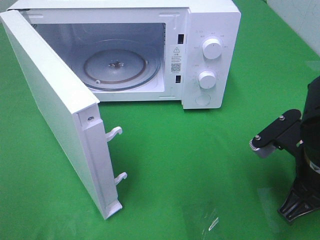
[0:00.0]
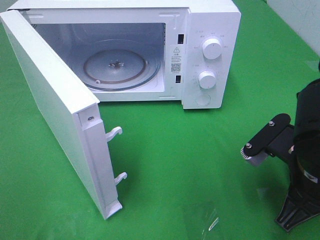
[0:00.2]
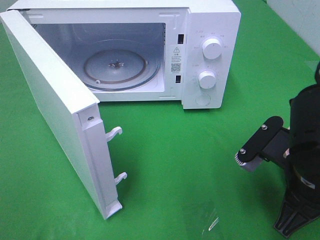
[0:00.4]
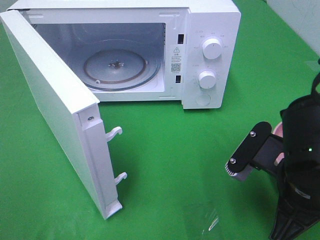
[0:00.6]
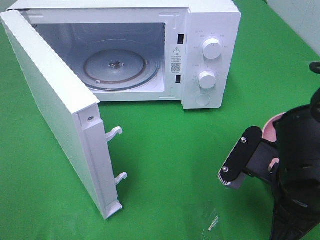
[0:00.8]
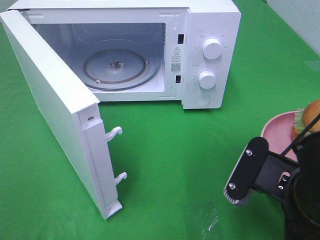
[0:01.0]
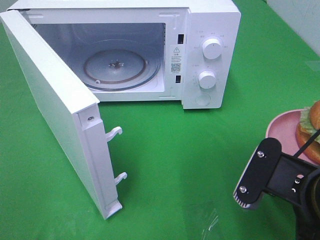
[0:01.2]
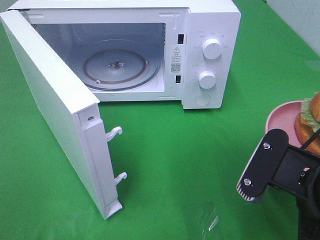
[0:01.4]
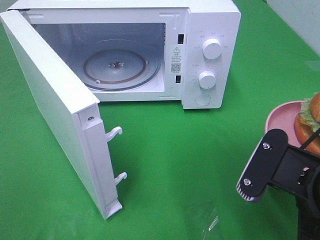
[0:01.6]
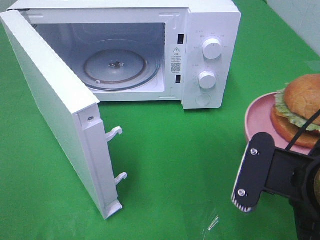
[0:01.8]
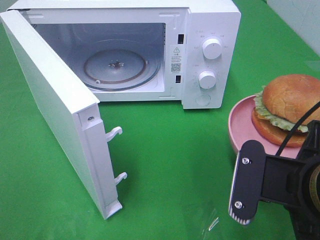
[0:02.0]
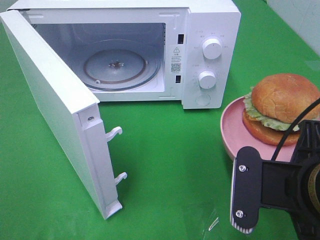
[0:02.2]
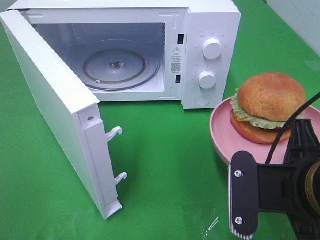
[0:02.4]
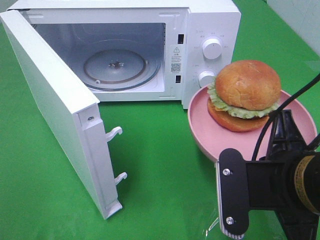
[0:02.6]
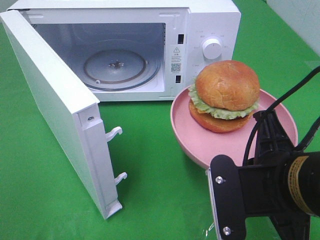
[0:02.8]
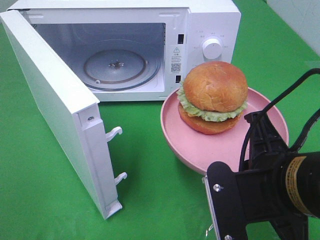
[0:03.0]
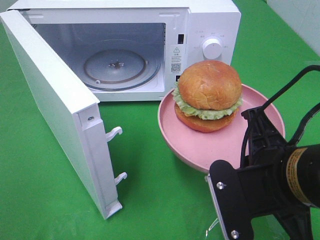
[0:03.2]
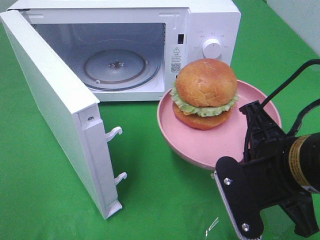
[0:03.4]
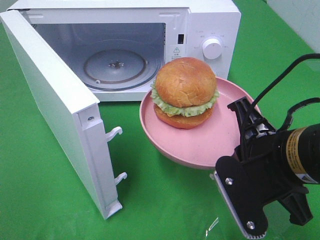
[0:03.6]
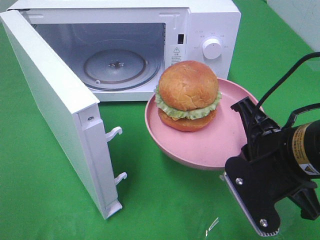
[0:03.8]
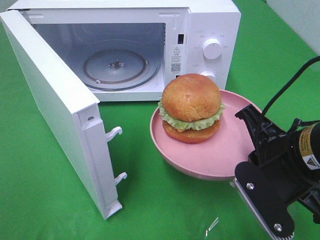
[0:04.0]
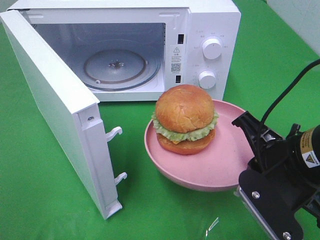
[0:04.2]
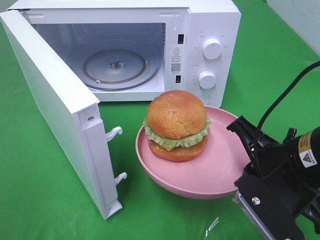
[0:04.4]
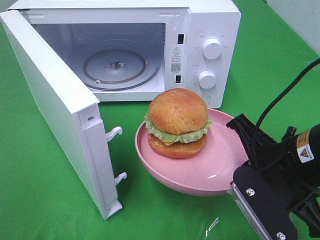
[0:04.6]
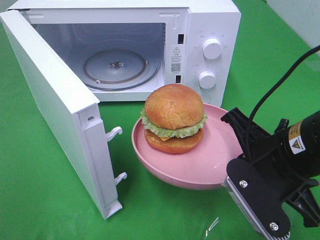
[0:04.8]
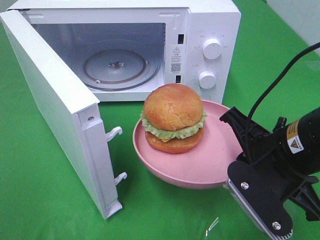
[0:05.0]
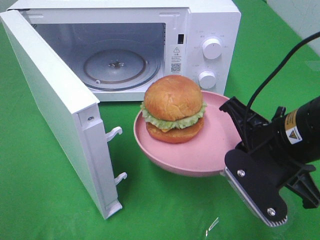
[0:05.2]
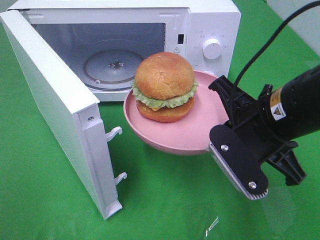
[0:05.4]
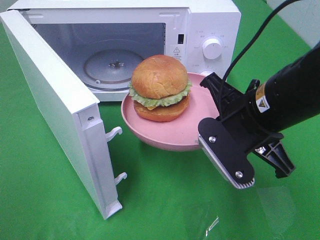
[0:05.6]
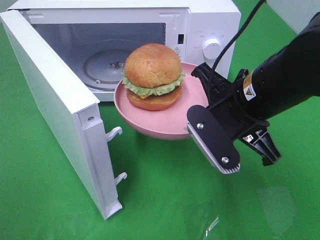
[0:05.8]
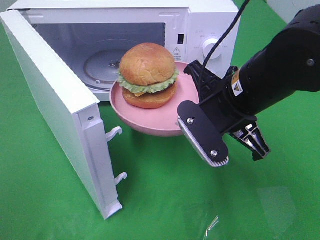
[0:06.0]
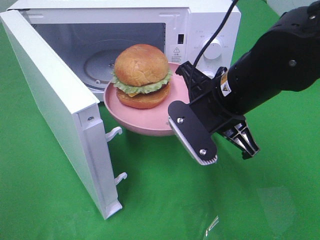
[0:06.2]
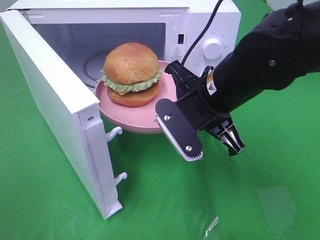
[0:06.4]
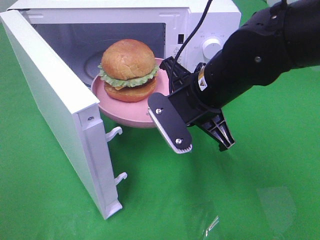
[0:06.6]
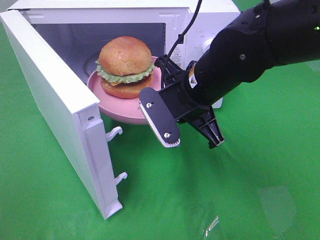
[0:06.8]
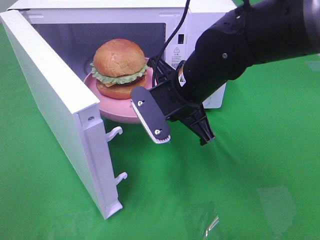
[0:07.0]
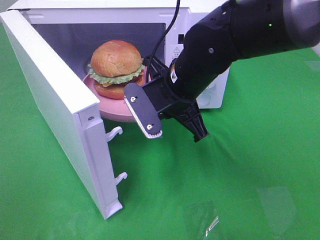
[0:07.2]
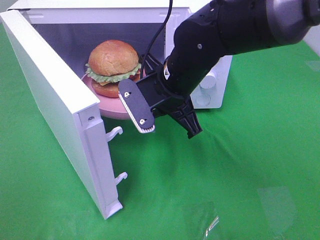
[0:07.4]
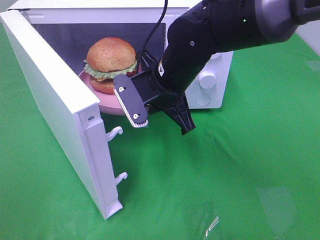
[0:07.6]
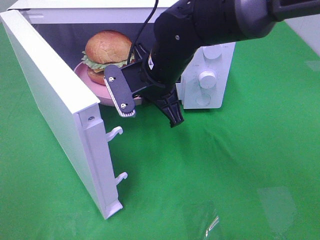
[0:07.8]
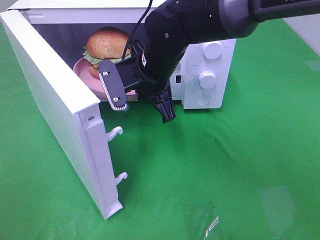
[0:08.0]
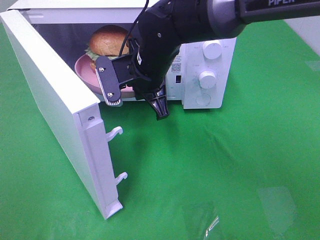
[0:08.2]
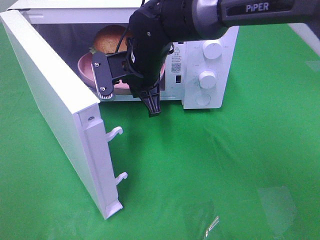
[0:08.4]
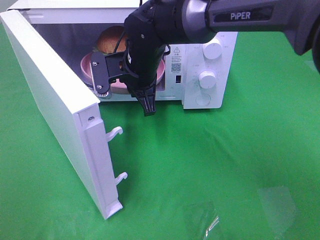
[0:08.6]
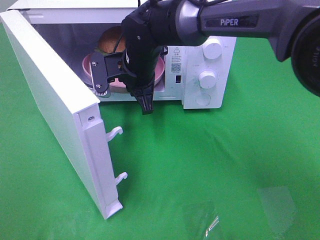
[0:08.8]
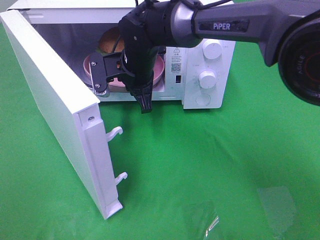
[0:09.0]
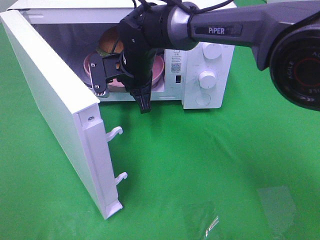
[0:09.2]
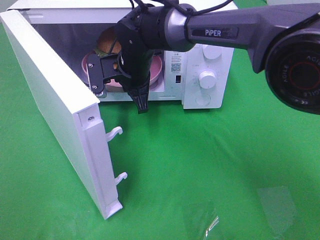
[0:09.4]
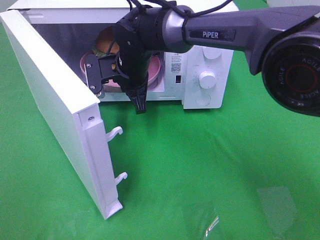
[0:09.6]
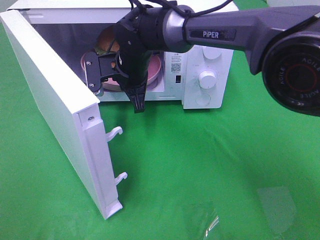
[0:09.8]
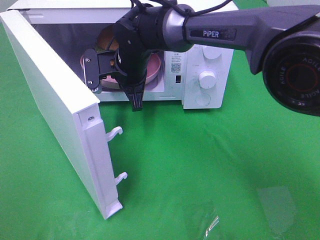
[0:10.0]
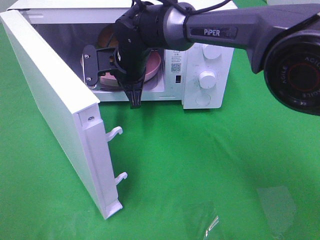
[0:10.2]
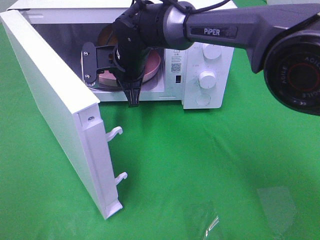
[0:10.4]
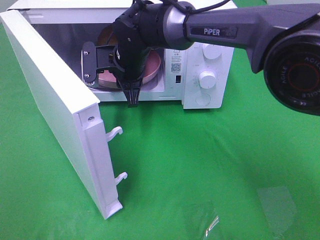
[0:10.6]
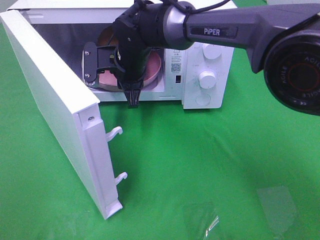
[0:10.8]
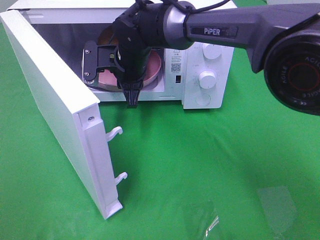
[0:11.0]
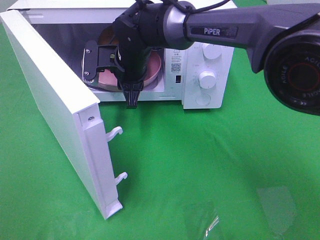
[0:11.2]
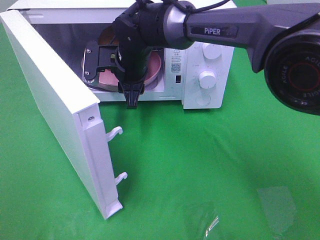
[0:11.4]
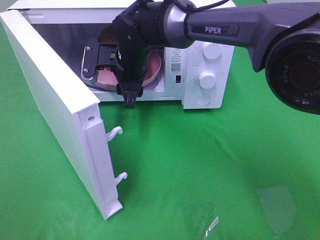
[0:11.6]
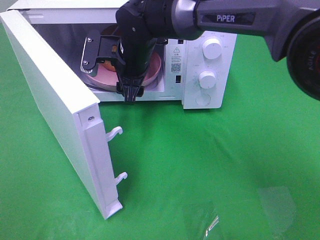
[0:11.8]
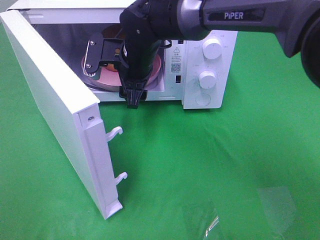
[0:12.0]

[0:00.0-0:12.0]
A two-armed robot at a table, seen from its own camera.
Task of the whole recording: Heat the burger.
Step, 0:00.0 to 0:10.4: Right hand: place the plate in the microwave.
0:00.0 to 0:01.6: The right gripper heads backward, covering about 5 cm.
0:03.0 to 0:04.4: The right gripper shifts by roughly 5 cm.
0:04.4 to 0:06.0: The right gripper heads forward and to the left, covering roughly 10 cm.
0:06.0 to 0:07.6: The right gripper shifts roughly 10 cm to the left and forward.
0:07.6 to 0:09.0: The right gripper shifts roughly 10 cm forward and to the left.
0:09.0 to 0:10.4: The grippers make only small movements.
0:10.4 to 0:12.0: The right gripper opens up.

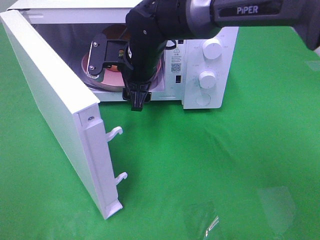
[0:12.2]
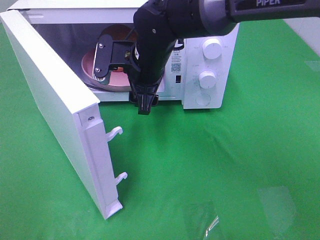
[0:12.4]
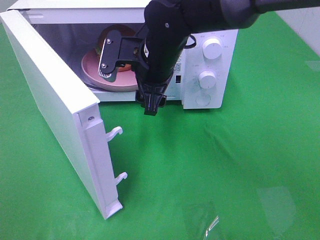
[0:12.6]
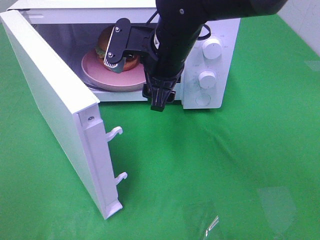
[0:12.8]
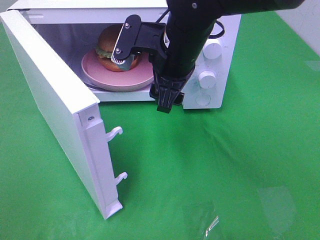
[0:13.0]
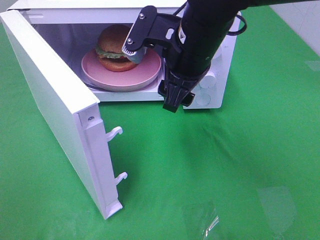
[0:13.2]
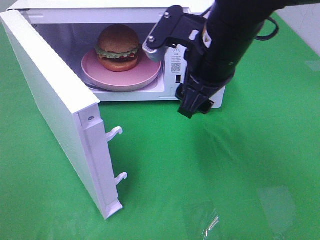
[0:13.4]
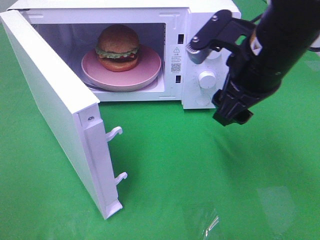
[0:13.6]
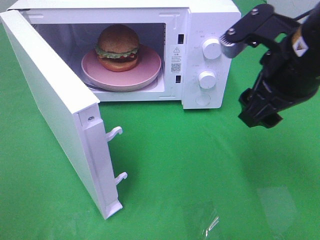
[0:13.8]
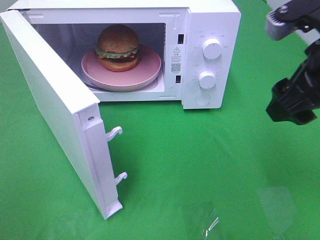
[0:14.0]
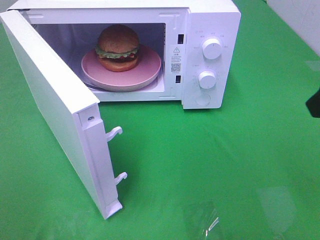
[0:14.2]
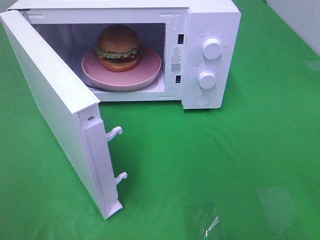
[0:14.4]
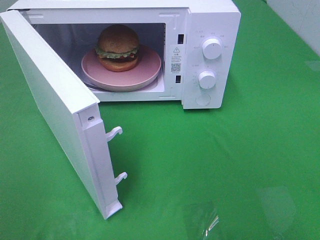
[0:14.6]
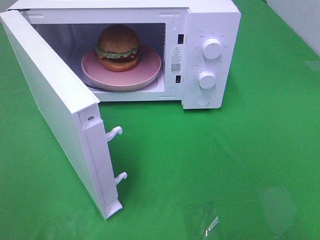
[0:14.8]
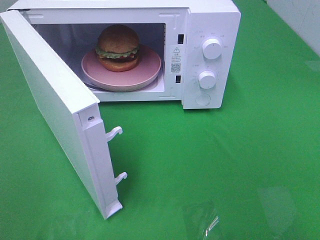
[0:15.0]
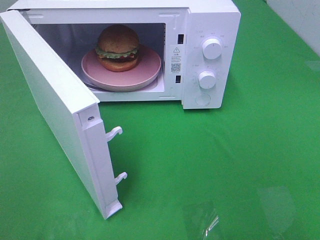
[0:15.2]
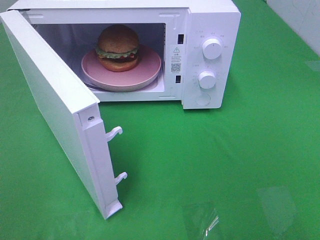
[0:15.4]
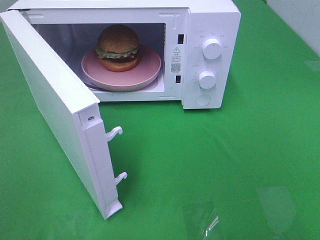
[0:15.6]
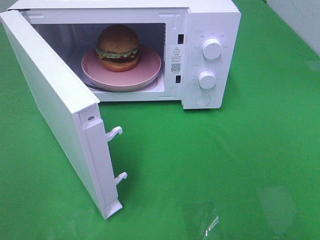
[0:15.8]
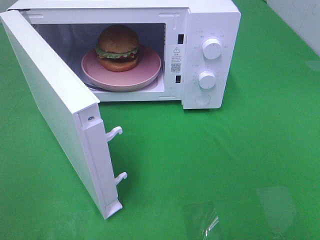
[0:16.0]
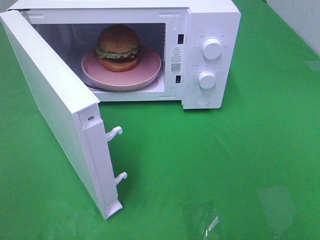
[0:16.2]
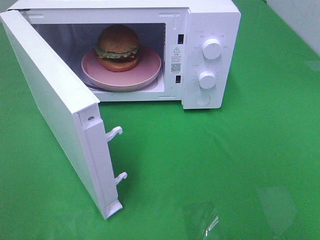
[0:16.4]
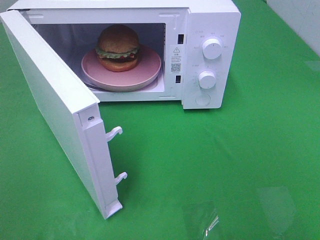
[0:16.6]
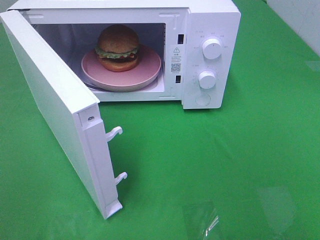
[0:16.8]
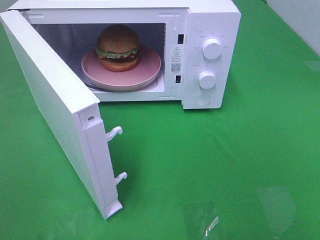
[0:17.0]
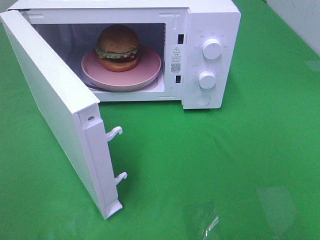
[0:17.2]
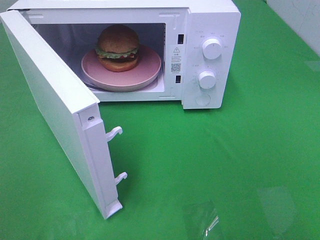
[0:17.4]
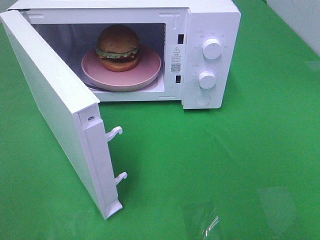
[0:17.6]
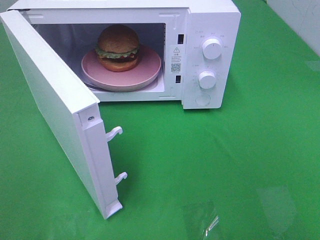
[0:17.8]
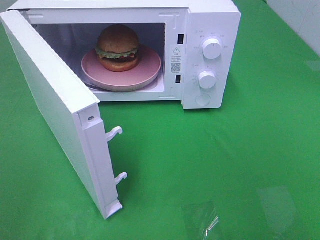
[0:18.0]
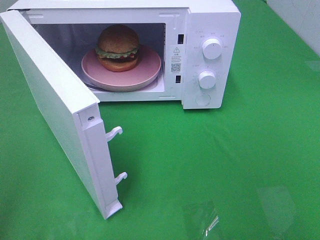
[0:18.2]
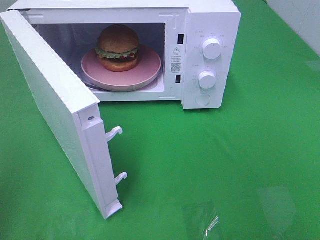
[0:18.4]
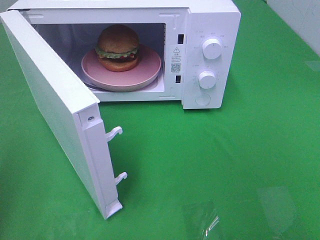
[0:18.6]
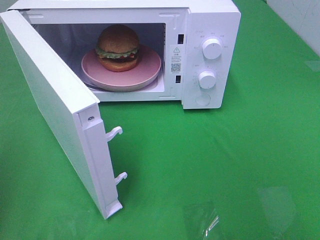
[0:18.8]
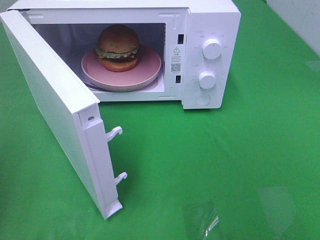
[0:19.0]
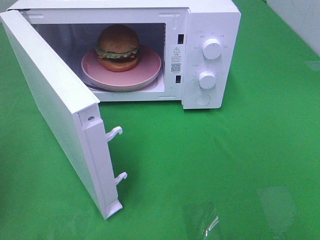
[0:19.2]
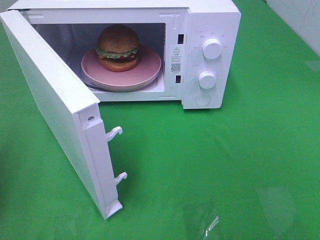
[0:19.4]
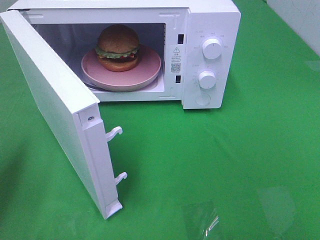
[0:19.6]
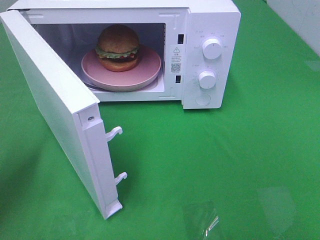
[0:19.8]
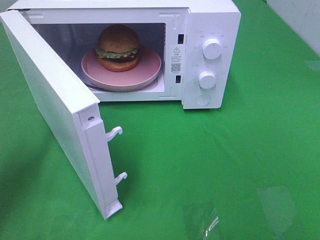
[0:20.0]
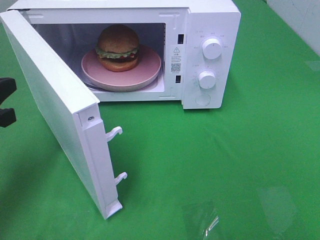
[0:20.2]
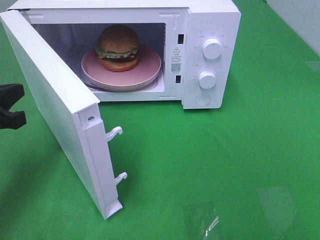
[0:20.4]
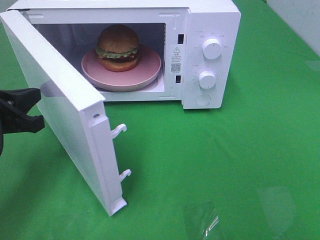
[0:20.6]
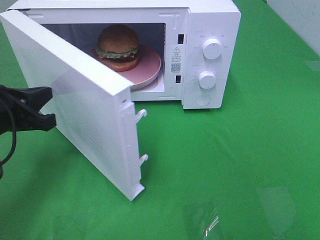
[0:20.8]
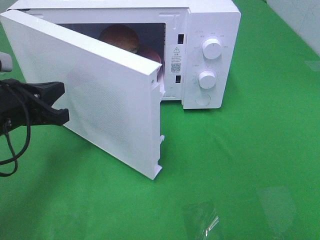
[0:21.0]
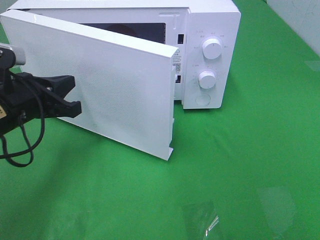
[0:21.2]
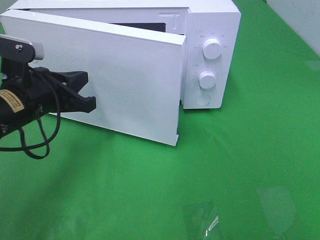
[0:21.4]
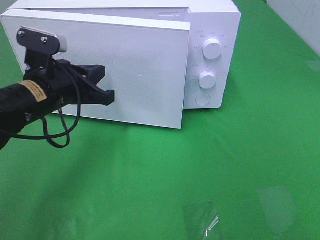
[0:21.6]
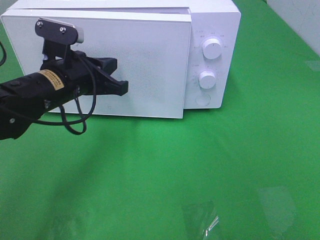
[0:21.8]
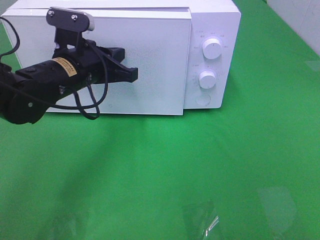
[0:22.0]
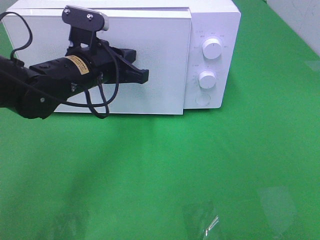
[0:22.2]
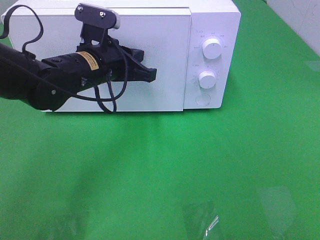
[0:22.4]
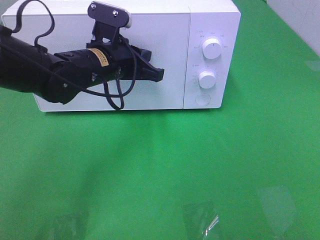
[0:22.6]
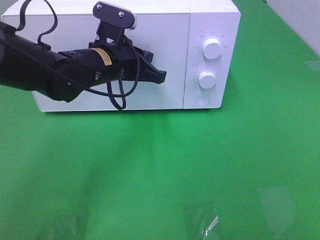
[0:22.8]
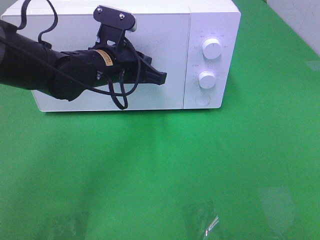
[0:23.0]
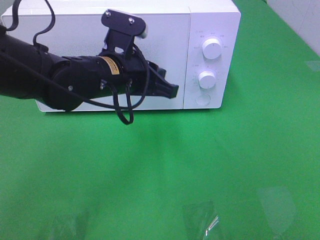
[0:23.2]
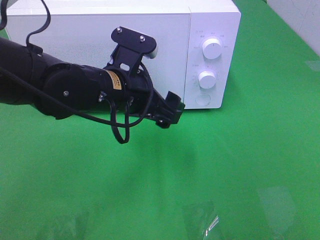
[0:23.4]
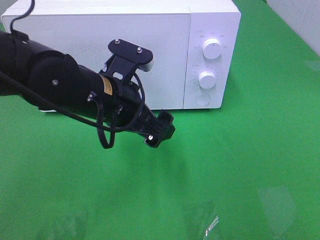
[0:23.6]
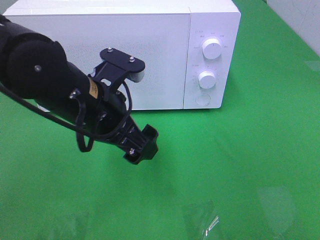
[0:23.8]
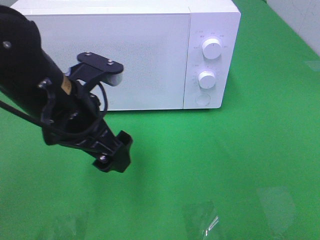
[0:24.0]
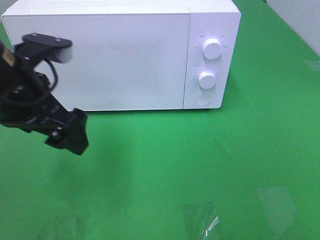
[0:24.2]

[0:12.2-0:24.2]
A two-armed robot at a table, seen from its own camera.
Task of the whole recording: Heat the burger.
Step, 0:12.2 to 0:23.0: Left hand: close the microwave door.
0:12.2 to 0:13.8: The right gripper shifts about 25 cm to the right, backward and upward.
0:13.8 to 0:15.2: The right gripper shifts approximately 25 cm backward and to the right.
0:18.2 to 0:19.8: The left gripper moves forward and downward, approximately 20 cm.
0:19.8 to 0:21.2: The left gripper goes some 10 cm to the right and forward.
0:21.2 to 0:22.6: The left gripper shifts roughly 15 cm to the right and forward.
0:22.6 to 0:24.2: The left gripper moves backward, to the left and upward, some 15 cm, and opens its fingers.
